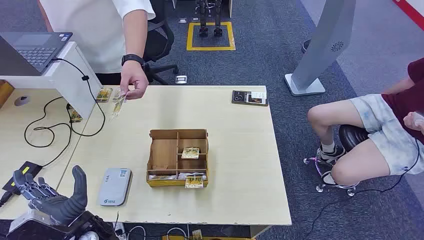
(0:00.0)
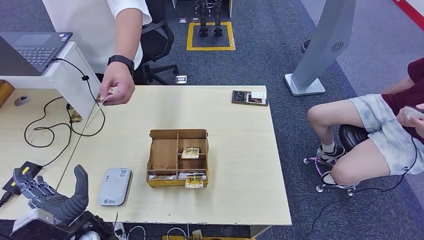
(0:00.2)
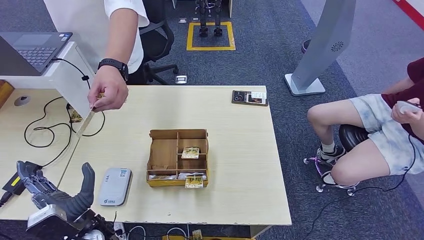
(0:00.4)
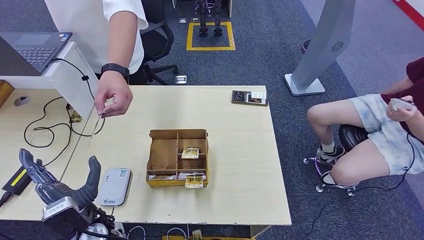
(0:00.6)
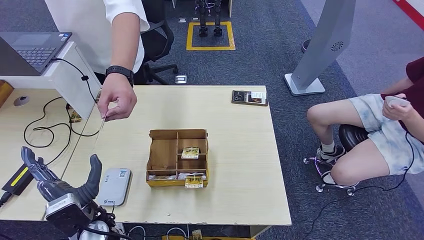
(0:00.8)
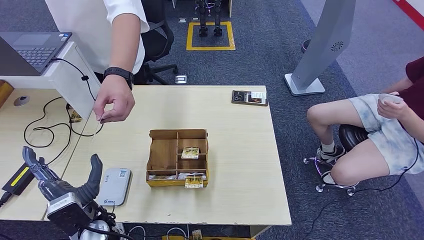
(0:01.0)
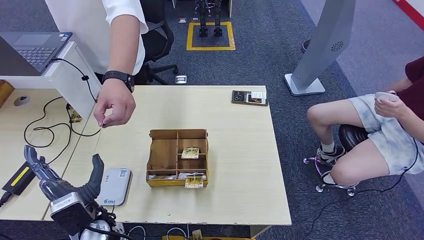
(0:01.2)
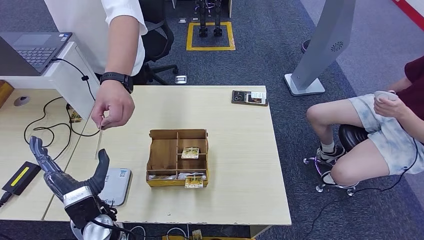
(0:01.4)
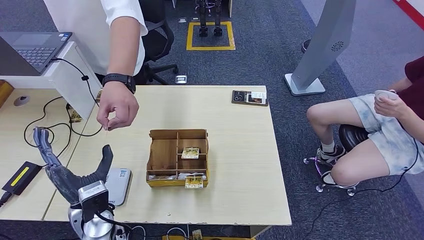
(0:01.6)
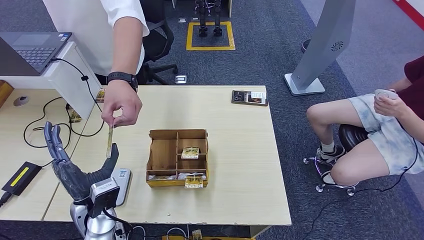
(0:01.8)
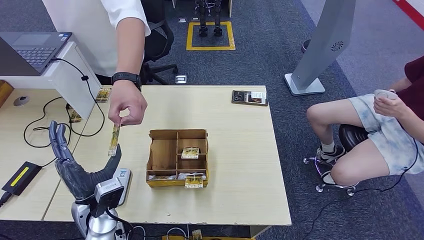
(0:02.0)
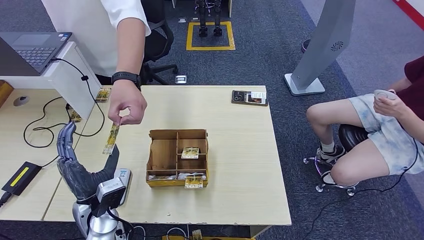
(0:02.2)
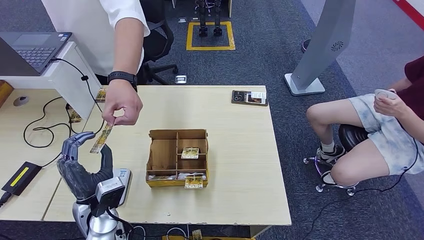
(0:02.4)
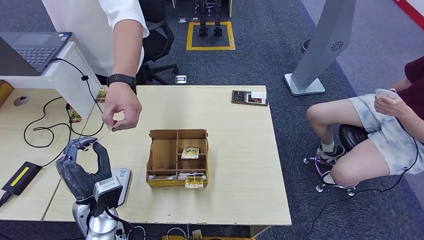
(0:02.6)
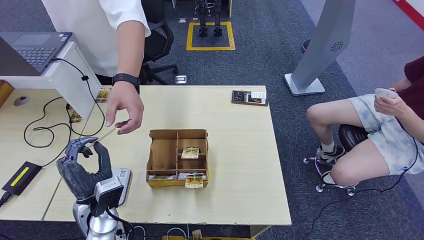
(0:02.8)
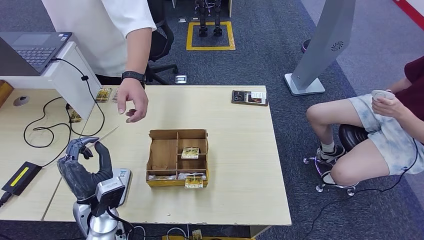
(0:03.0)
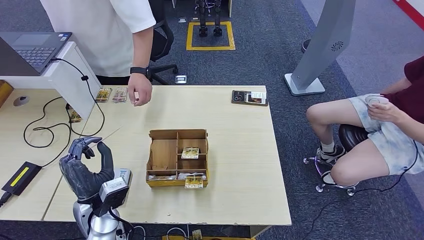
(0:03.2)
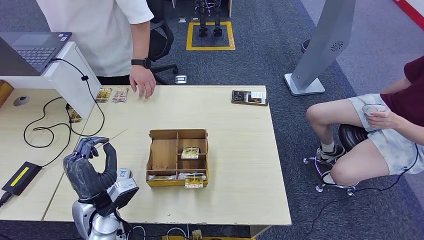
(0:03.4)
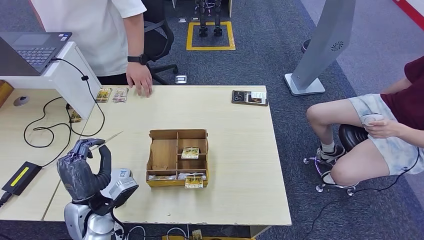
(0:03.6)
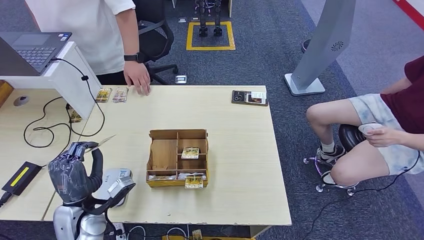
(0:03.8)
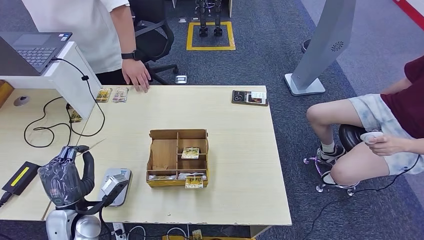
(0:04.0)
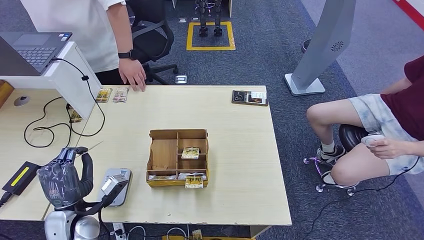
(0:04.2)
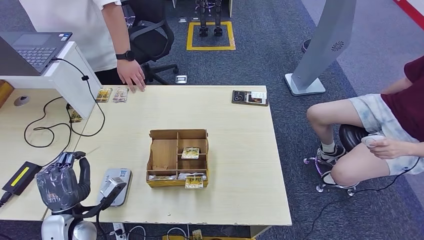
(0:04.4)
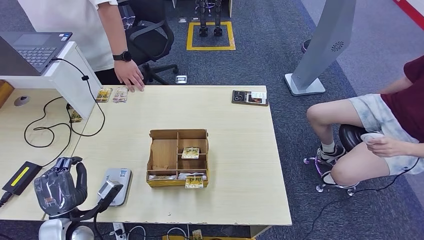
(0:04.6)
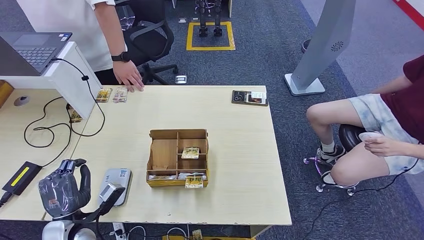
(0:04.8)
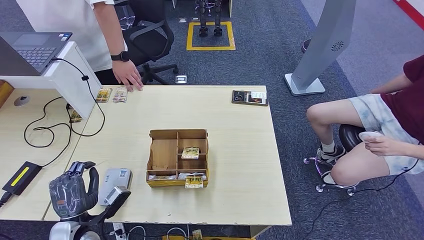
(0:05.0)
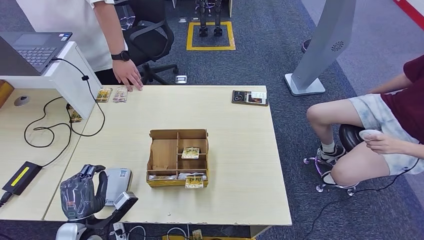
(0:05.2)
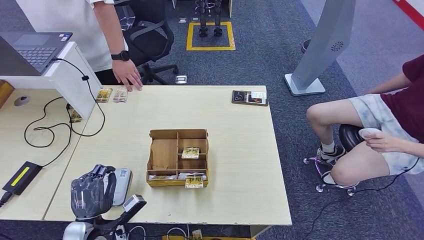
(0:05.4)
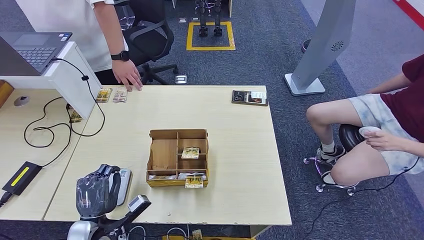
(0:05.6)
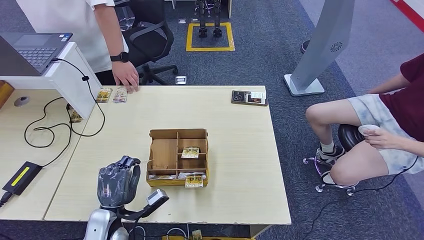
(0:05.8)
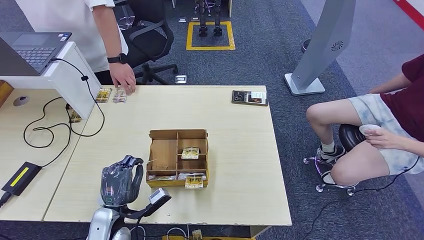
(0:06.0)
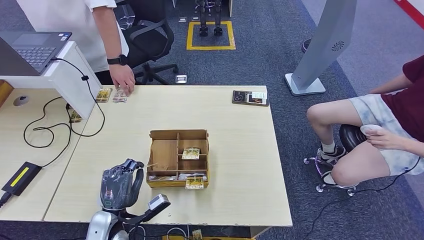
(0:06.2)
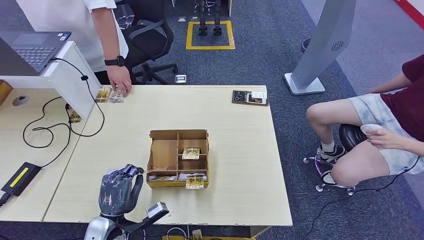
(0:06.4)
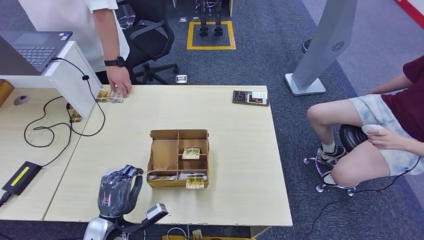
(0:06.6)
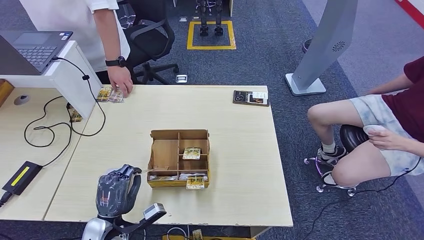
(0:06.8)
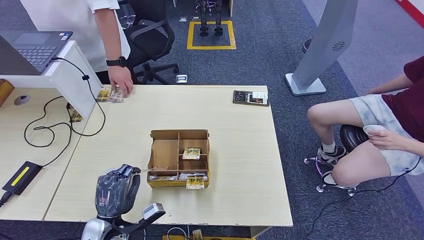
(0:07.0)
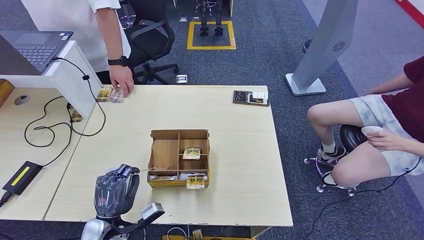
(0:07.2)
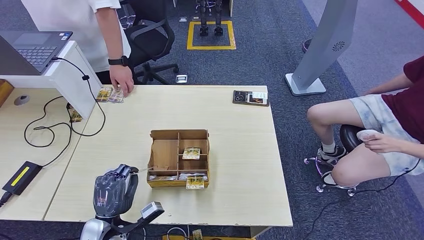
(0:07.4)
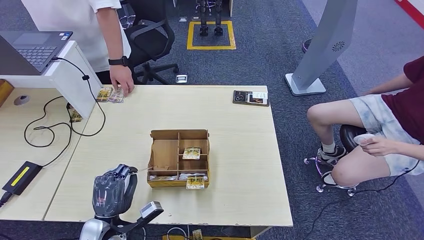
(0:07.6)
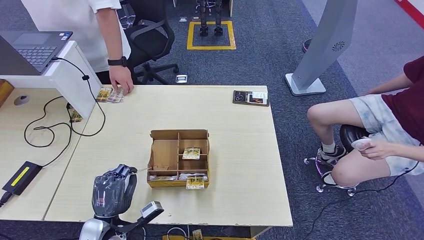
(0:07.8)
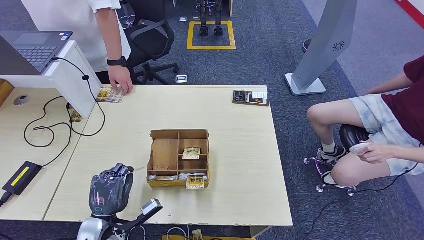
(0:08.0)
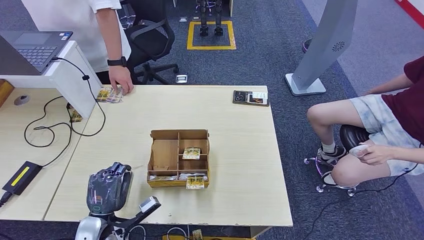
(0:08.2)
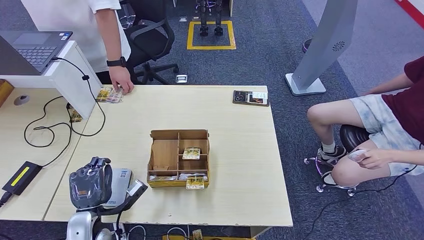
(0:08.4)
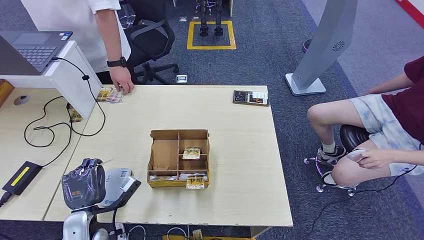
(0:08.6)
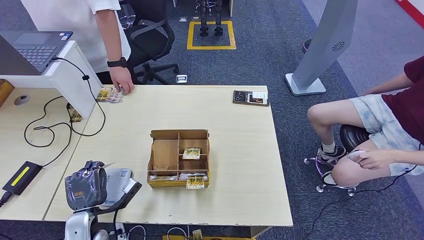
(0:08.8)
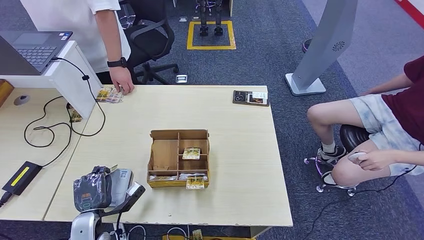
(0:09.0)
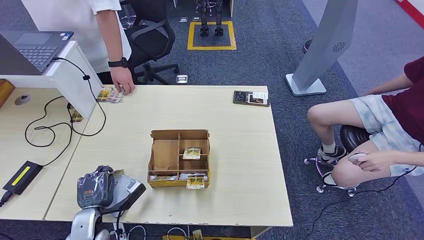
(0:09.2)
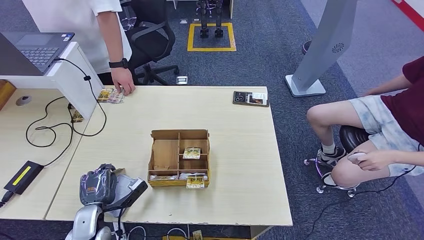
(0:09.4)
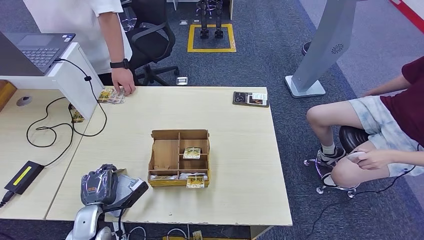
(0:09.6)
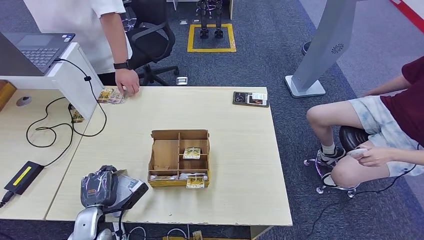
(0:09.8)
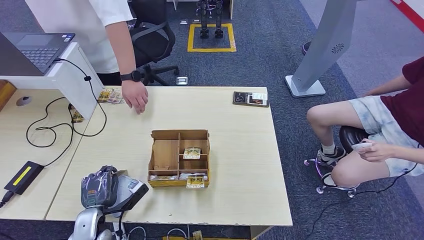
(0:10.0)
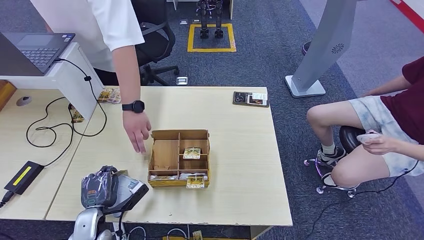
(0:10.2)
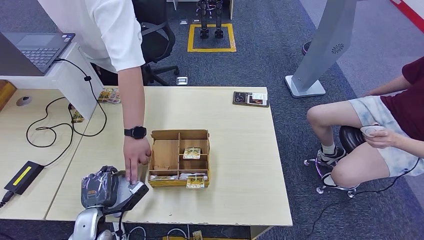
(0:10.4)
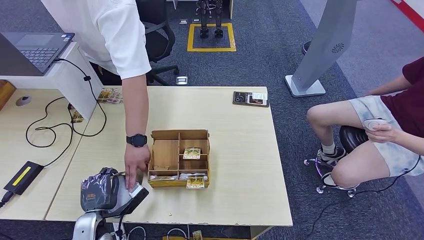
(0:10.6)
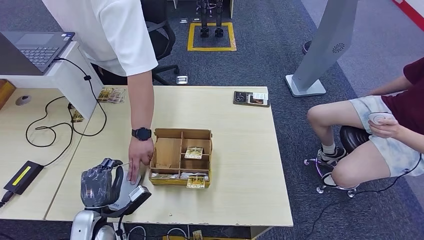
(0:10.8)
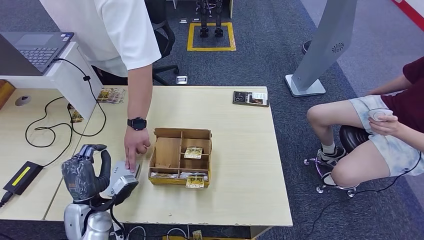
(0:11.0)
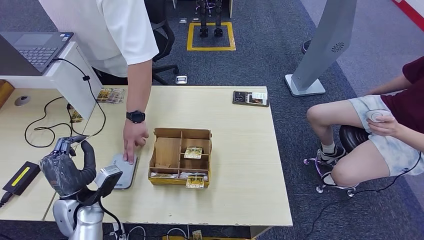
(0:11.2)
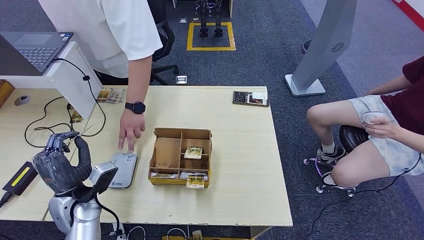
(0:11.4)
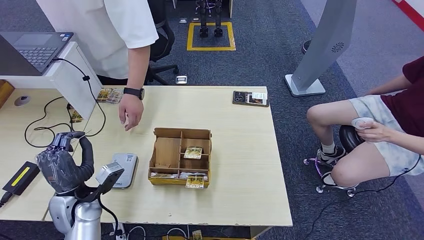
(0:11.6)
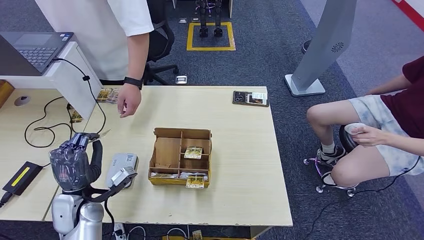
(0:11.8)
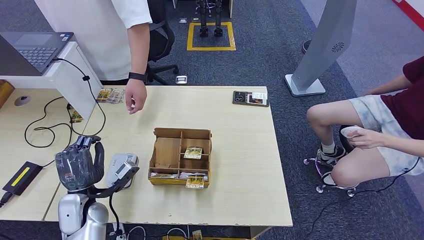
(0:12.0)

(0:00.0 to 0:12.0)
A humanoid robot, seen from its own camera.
Step, 0:00.0 - 0:03.0: Take the ID card from the person's hand.
0:01.6 - 0:03.0: The hands stay close to where they were, moving slightly.
0:03.0 - 0:04.4: The left hand goes some 10 cm to the left.
0:04.4 - 0:06.0: The left hand moves to the right, about 10 cm; the right hand goes about 10 cm forward and to the left.
0:06.0 - 0:07.6: The right hand moves to the right and backward, roughly 15 cm.
0:07.6 - 0:09.0: The left hand moves approximately 5 cm.
0:09.0 - 0:10.4: There are only small adjustments of the hands.
0:10.4 - 0:12.0: The left hand moves upward, roughly 10 cm.

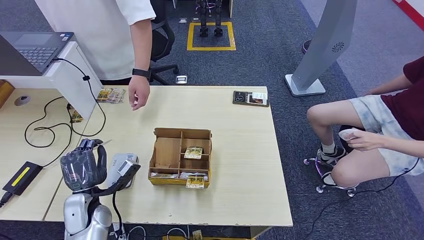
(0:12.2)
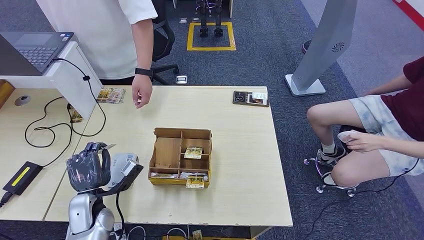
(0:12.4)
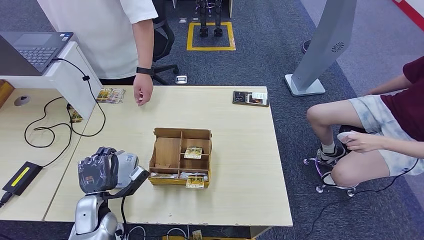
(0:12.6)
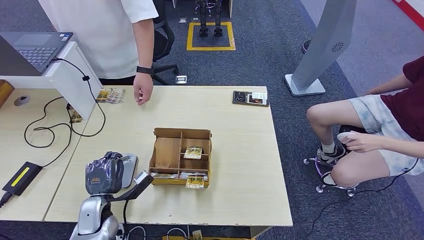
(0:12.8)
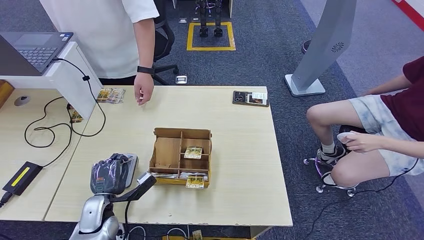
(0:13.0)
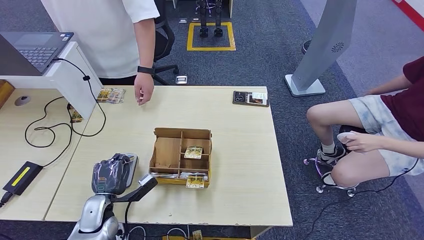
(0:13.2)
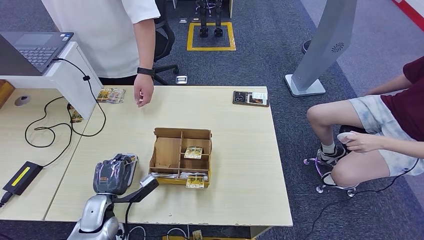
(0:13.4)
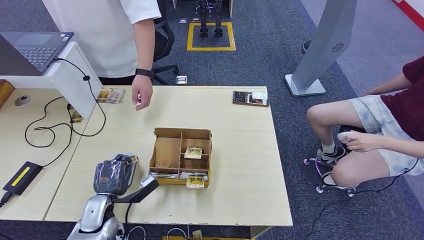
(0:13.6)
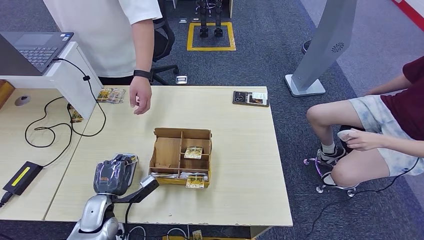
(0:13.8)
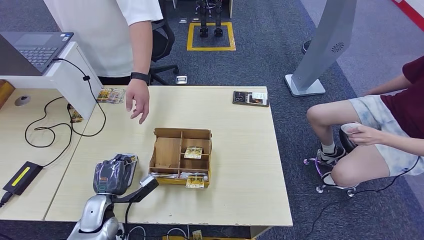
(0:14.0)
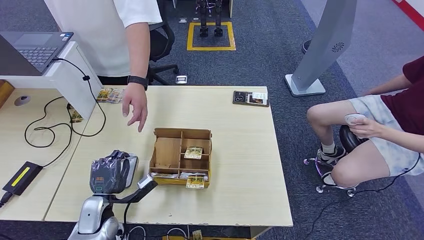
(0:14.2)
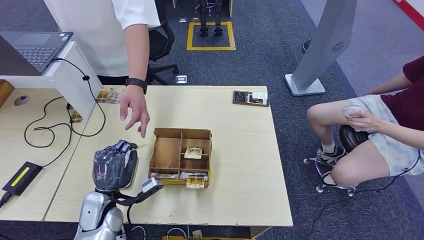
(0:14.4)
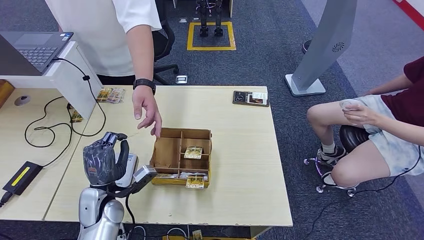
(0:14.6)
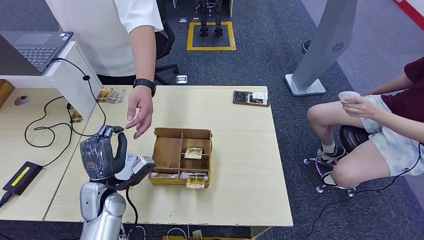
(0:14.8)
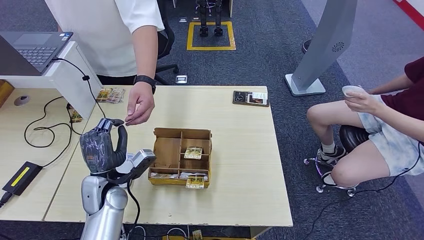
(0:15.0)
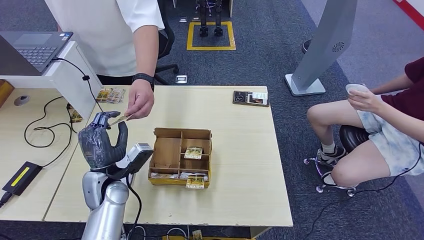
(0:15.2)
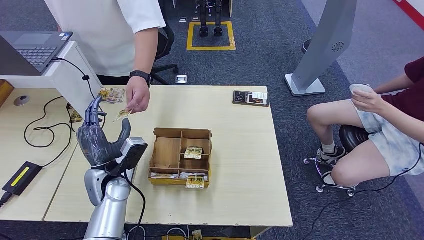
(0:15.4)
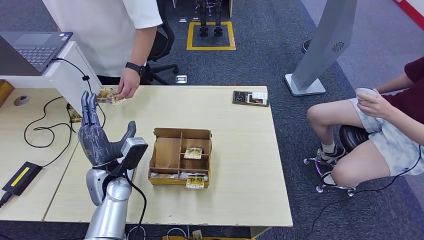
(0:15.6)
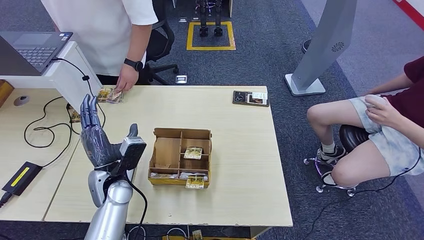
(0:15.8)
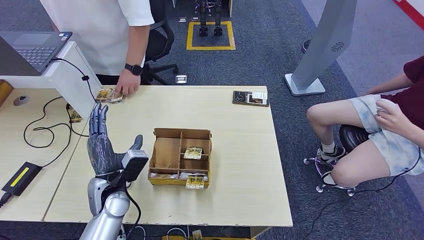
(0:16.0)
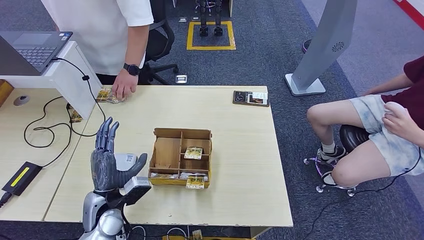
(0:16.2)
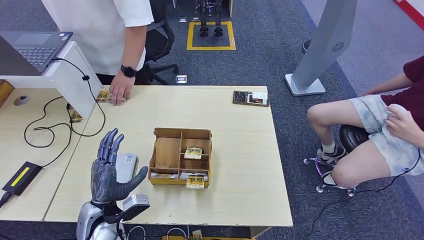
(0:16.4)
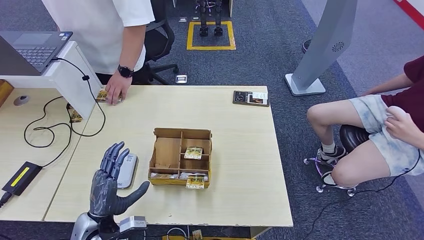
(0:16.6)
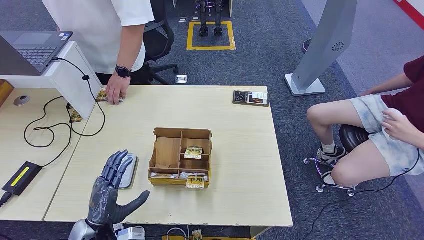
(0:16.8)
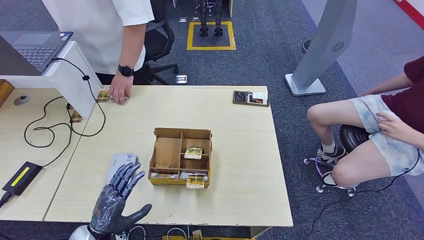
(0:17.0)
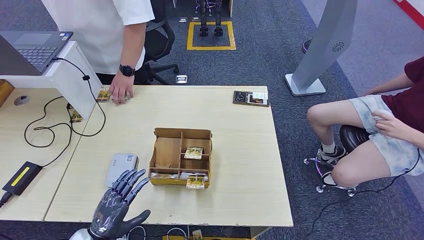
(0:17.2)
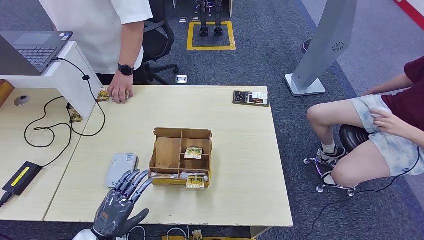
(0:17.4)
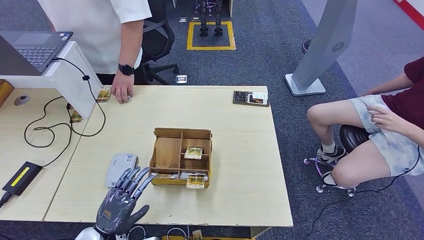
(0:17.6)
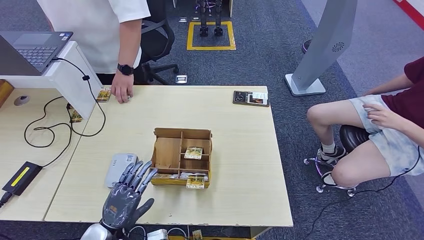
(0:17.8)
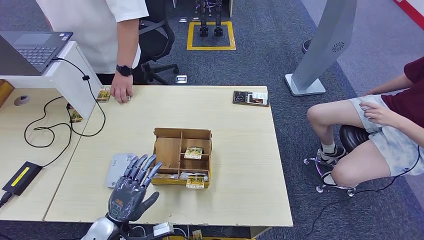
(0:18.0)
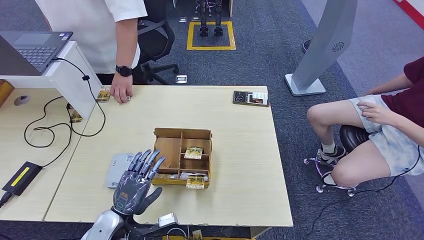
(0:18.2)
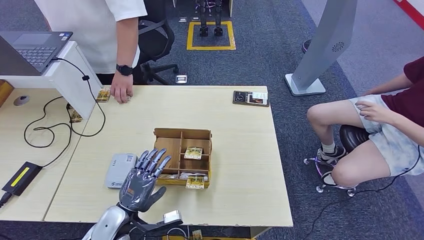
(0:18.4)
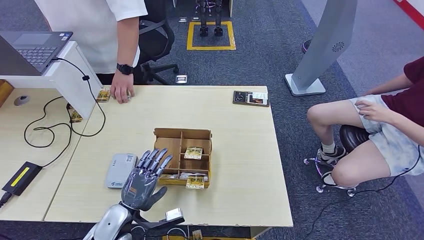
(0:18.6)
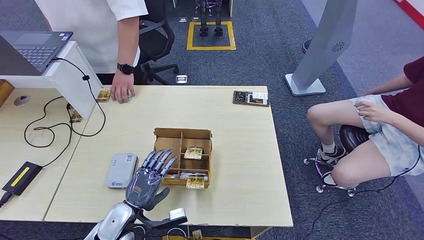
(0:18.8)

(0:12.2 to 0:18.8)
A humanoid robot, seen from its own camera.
Step, 0:14.4 - 0:15.6: Hand the ID card to the person.
0:12.2 - 0:13.8: The left hand shifts approximately 5 cm downward.
0:13.8 - 0:15.4: The left hand moves upward and forward, about 10 cm.
0:15.4 - 0:17.2: The left hand heads backward and downward, covering some 15 cm.
0:17.2 - 0:18.8: The left hand is displaced to the right and forward by about 10 cm.
